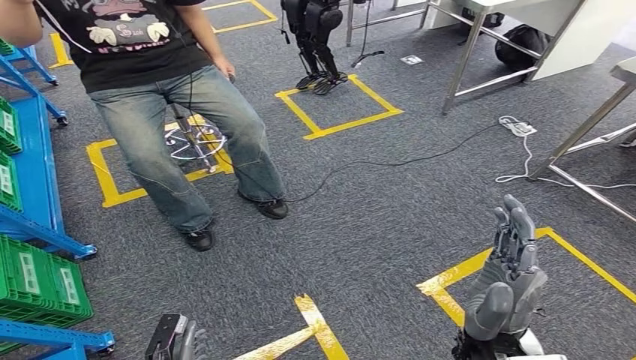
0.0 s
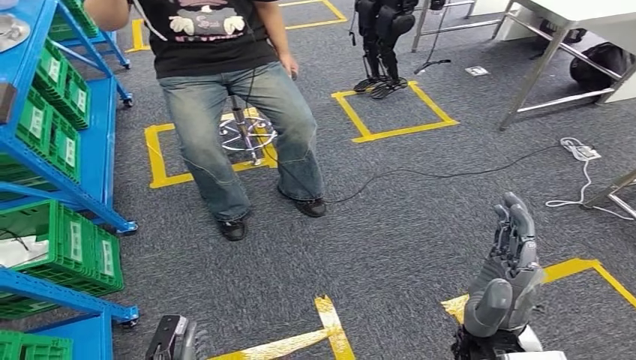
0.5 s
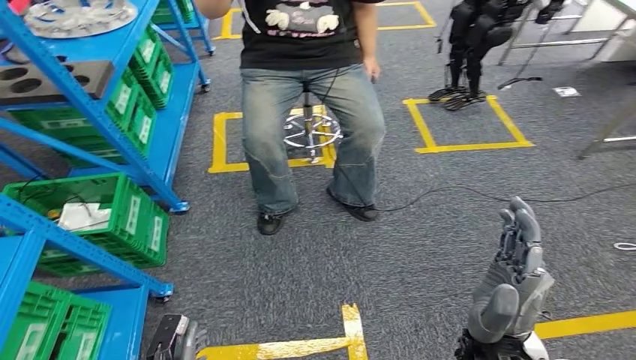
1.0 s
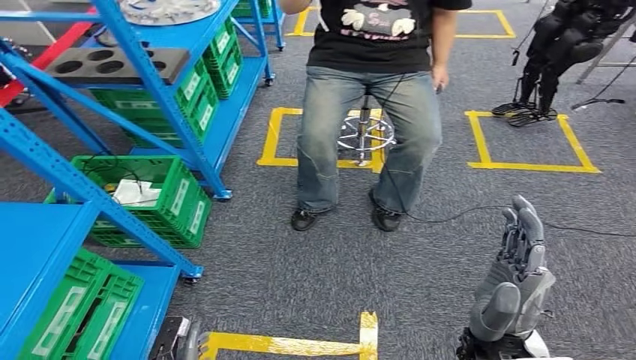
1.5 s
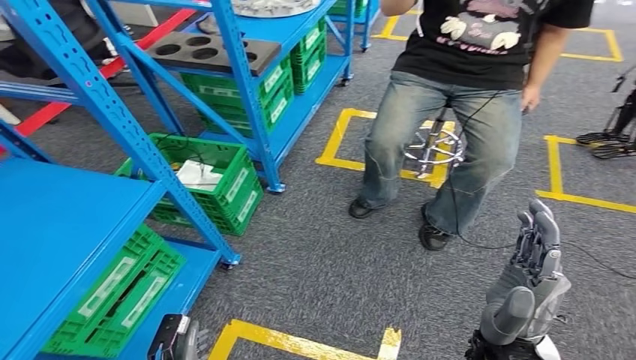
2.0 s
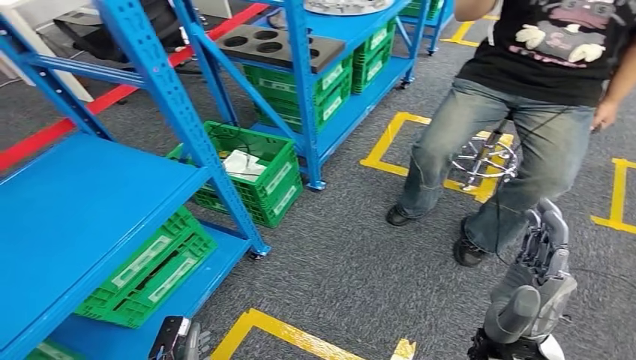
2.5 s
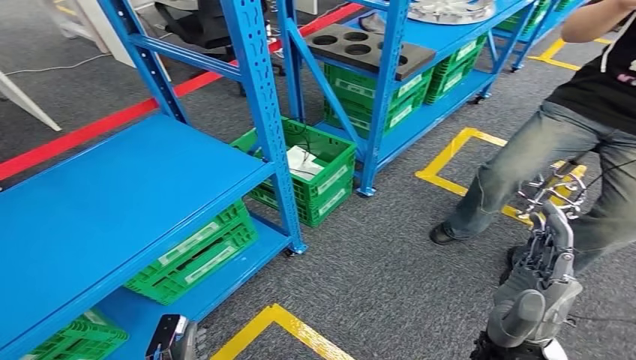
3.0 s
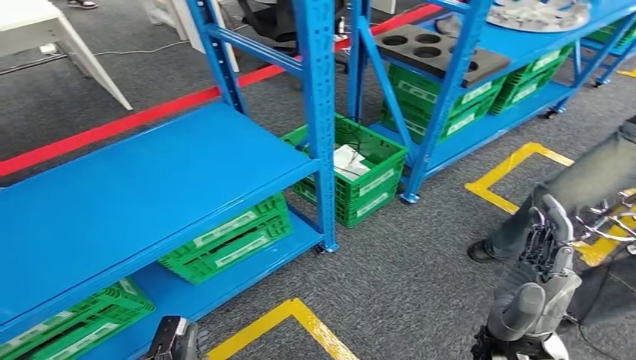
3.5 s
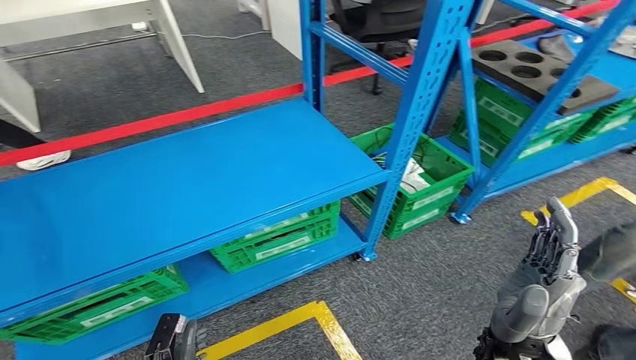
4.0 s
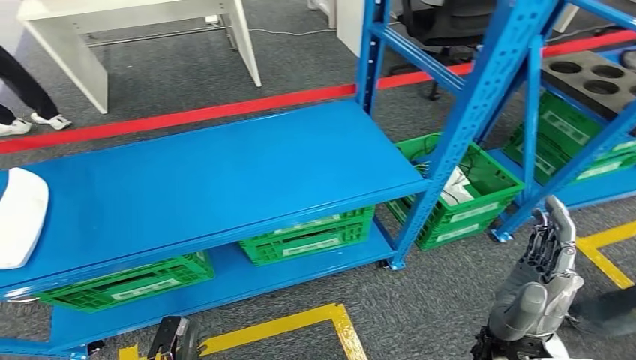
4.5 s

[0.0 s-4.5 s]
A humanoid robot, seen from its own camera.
Step, 0.0 to 4.5 s: Return to the initial position at the workbench.
